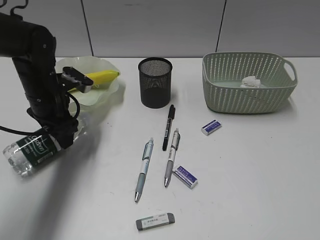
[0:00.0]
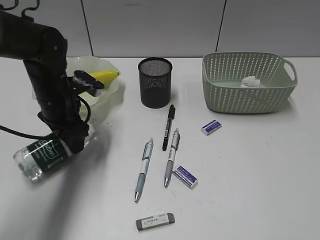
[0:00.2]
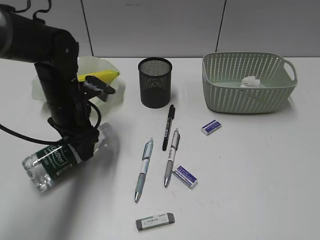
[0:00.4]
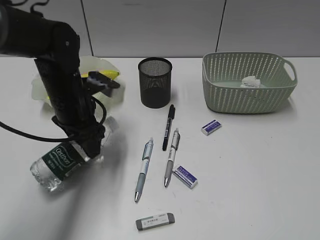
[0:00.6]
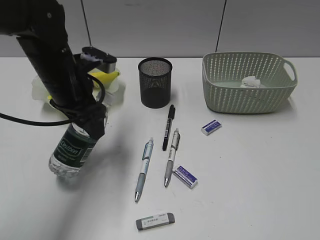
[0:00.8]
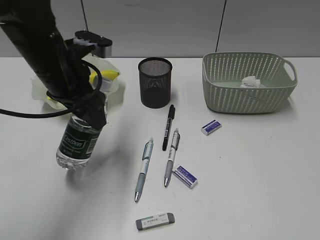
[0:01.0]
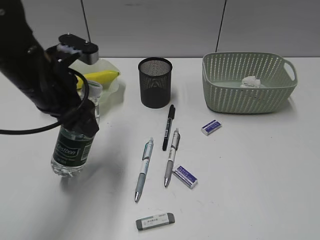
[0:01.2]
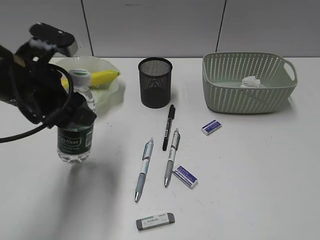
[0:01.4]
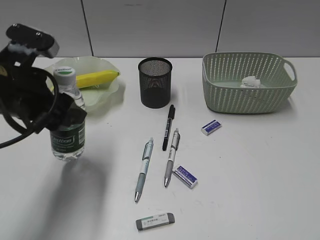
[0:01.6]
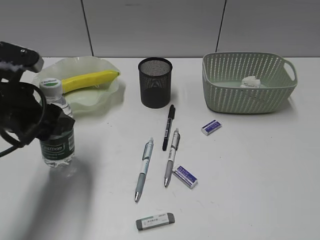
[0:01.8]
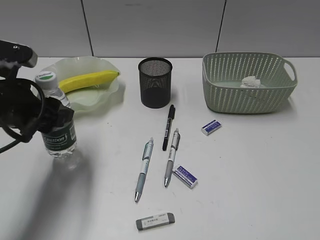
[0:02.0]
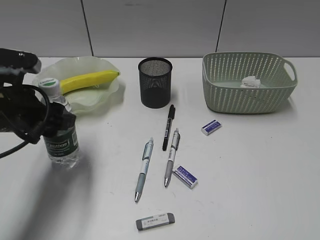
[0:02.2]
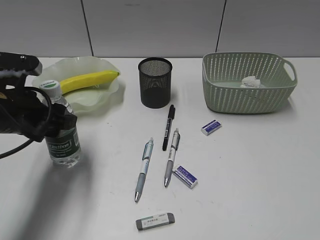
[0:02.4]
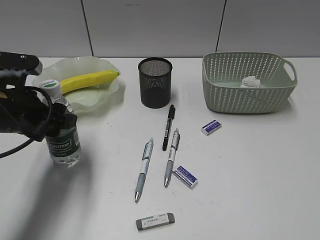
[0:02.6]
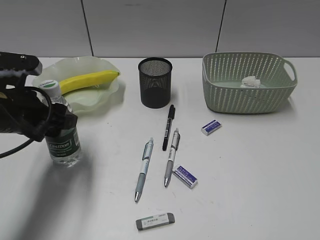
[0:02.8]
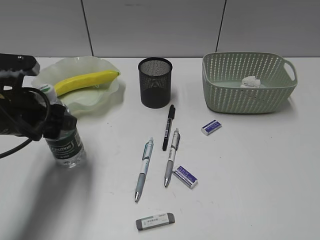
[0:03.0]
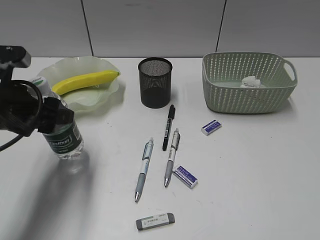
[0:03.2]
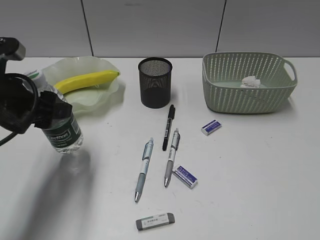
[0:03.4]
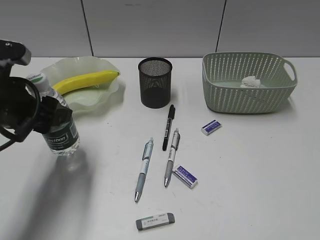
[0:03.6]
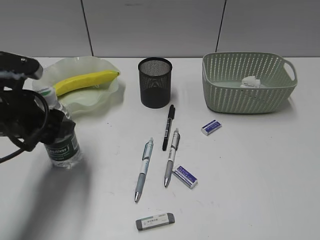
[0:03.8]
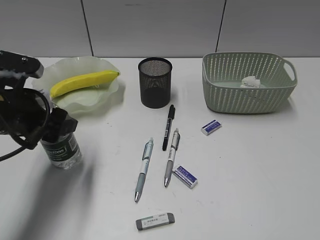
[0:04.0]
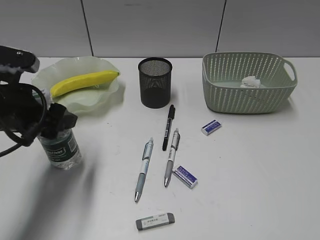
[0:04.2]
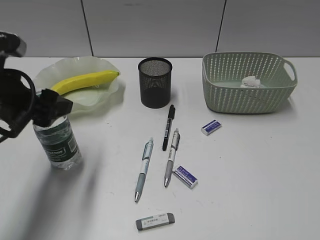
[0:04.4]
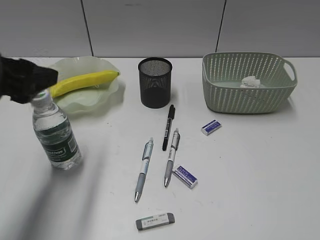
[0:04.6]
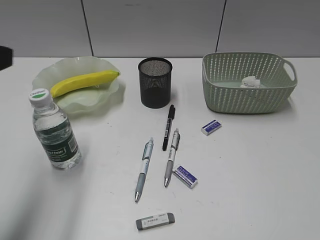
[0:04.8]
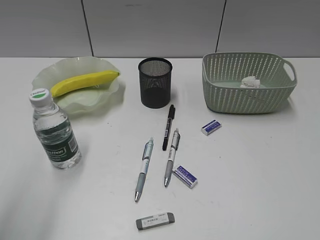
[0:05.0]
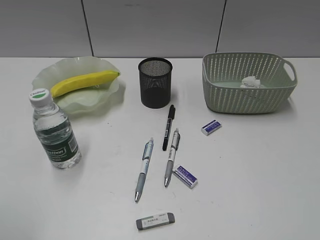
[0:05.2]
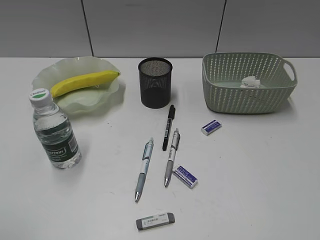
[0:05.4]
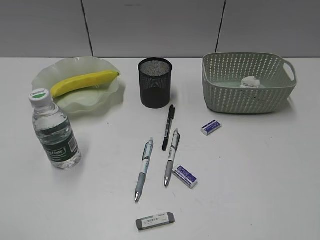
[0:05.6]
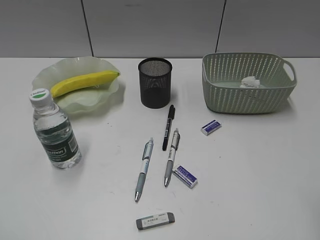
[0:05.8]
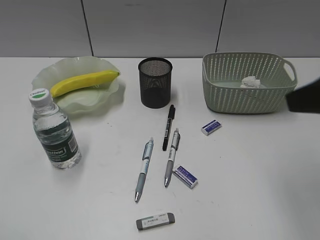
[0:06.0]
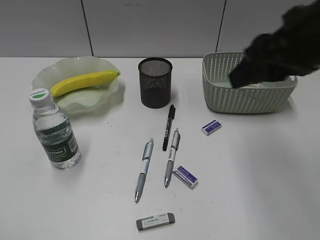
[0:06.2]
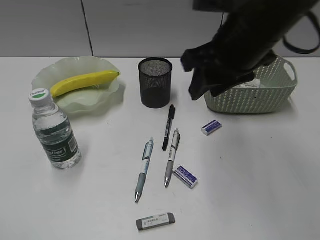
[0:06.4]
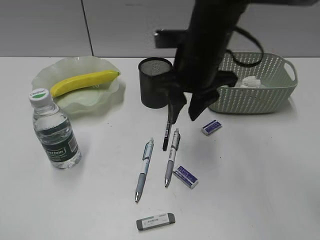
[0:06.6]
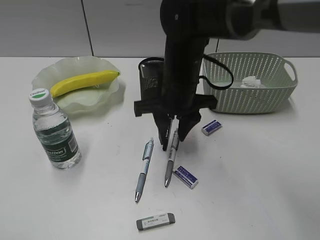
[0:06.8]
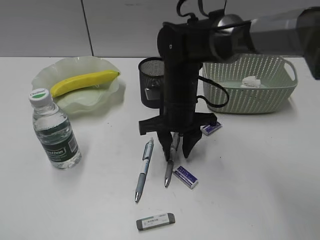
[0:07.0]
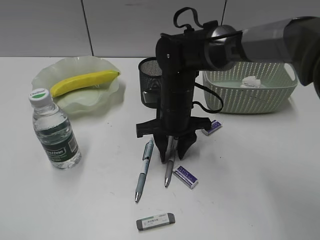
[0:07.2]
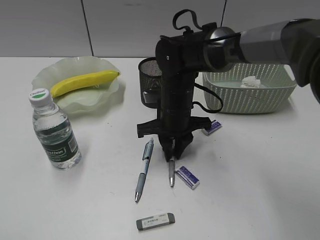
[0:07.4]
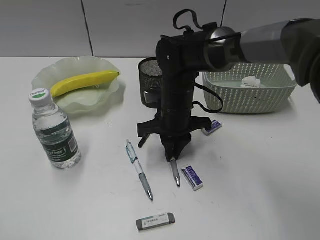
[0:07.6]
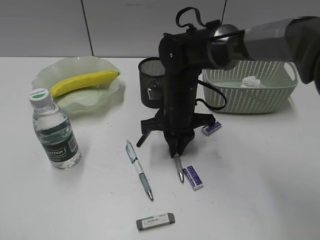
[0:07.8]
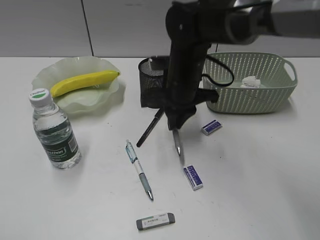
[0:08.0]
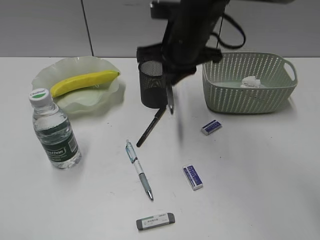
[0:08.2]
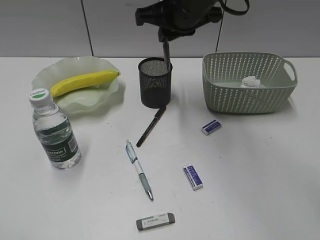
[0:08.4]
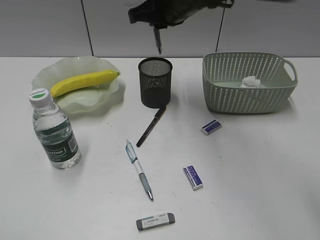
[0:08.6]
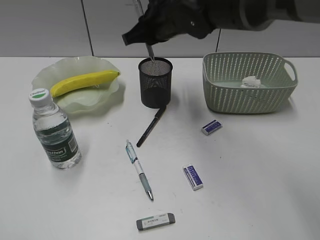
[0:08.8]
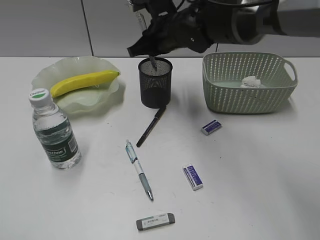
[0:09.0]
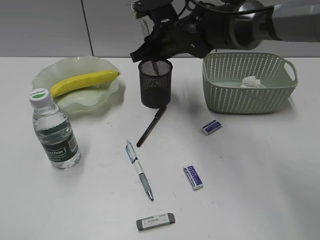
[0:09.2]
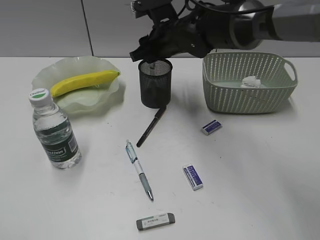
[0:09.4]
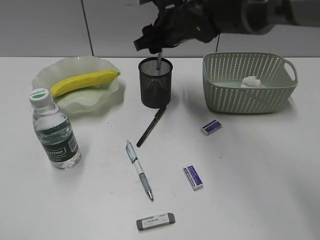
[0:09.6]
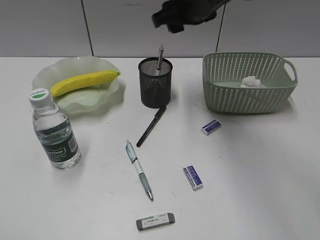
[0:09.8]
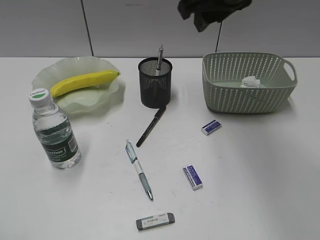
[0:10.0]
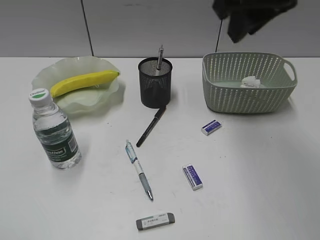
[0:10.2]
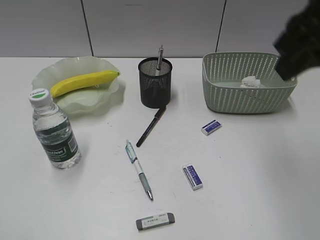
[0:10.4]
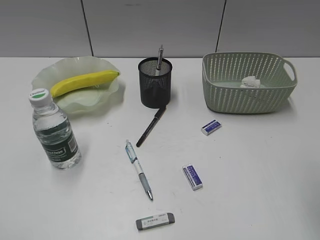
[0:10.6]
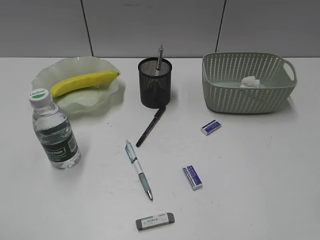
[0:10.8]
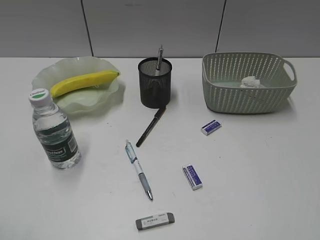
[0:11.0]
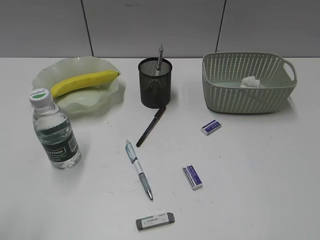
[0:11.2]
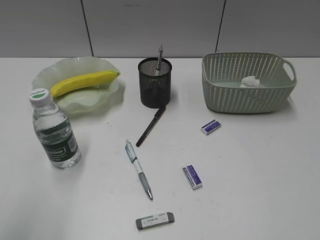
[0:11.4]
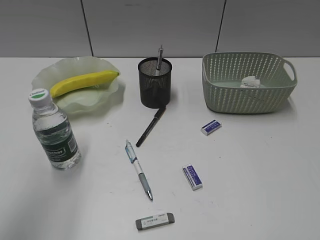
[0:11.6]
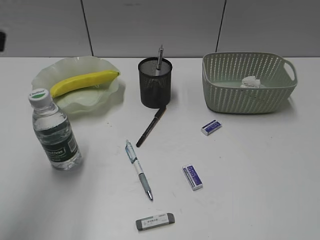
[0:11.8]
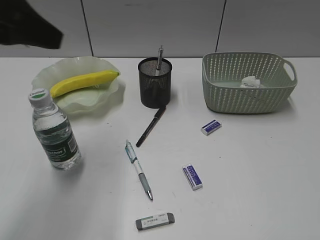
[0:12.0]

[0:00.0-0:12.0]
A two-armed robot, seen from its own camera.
Step, 0.0 to 4.6 s: Stand the bottle with left gripper.
Step, 4.8 to 7.4 s: Grasp the gray pen with right gripper.
Step, 7.6 to 9.4 s: Place the gray pen in pen holder with right gripper.
0.0 to 1.6 s: The left gripper goes roughly 15 cm backward and upward.
1.6 to 3.0 s: The left gripper changes place by about 5 cm.
3.0 to 4.4 s: There are only small adjustments of the grippers.
4.4 to 6.0 s: The right gripper is displaced forward and to the left by roughly 15 cm; the left gripper goes approximately 25 cm backward.
6.0 to 7.6 s: The right gripper moves downward, to the left and forward, roughly 35 cm, and closes up.
7.6 to 9.0 s: The right gripper moves upward and forward, some 15 cm.
9.0 to 10.4 s: The right gripper shifts approximately 30 cm backward, upward and to the right, and opens, then closes once more.
10.4 to 12.0 s: The right gripper goes approximately 30 cm backward and to the right; the left gripper moves forward and to the right, some 25 cm.

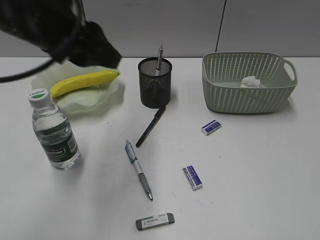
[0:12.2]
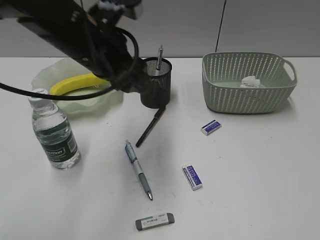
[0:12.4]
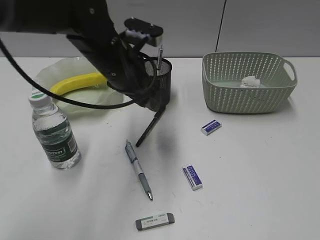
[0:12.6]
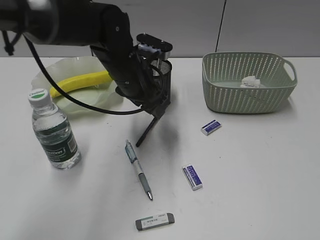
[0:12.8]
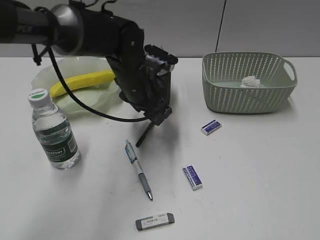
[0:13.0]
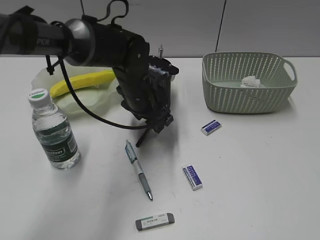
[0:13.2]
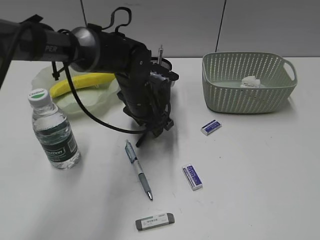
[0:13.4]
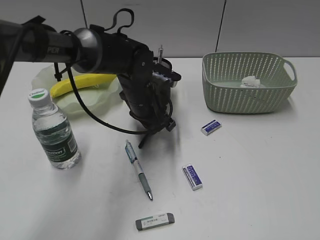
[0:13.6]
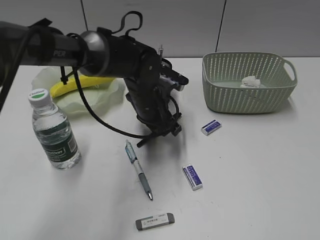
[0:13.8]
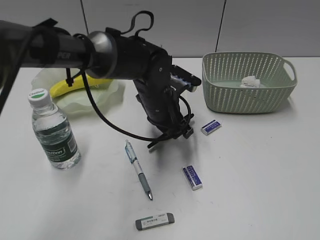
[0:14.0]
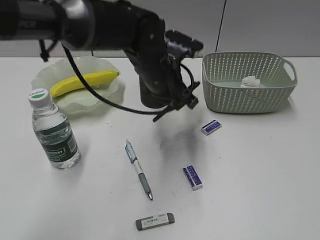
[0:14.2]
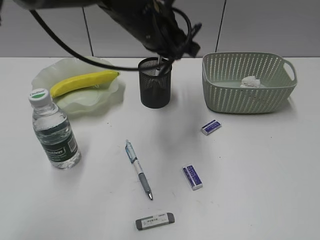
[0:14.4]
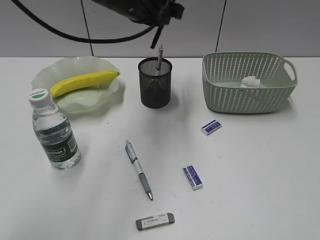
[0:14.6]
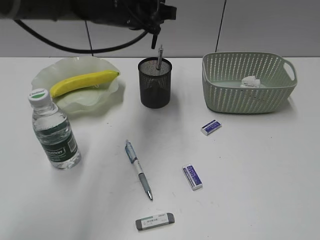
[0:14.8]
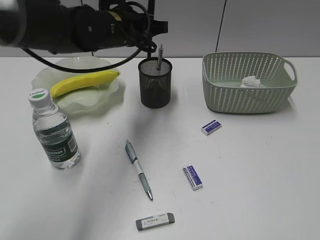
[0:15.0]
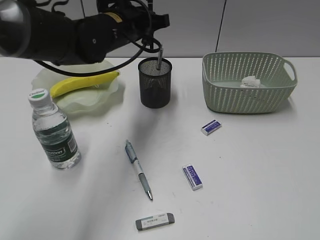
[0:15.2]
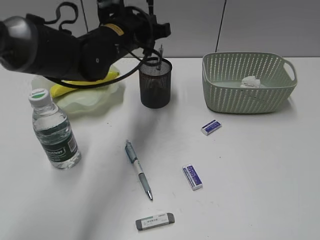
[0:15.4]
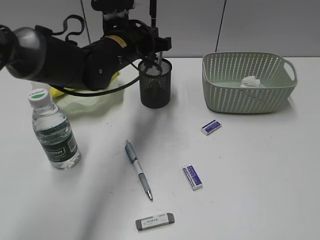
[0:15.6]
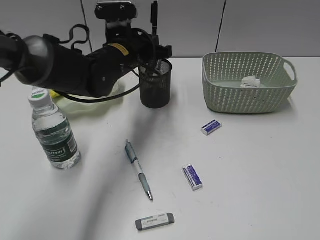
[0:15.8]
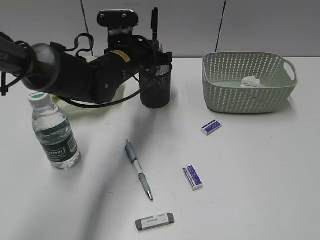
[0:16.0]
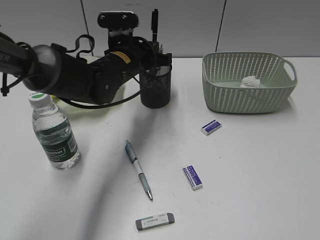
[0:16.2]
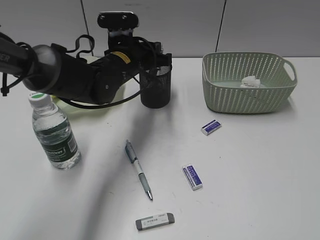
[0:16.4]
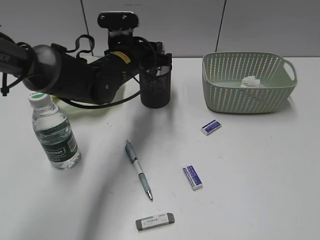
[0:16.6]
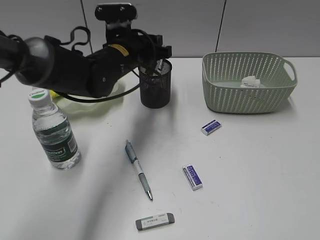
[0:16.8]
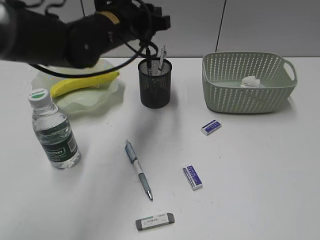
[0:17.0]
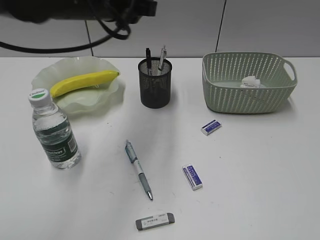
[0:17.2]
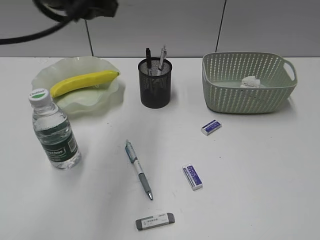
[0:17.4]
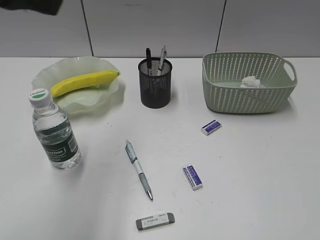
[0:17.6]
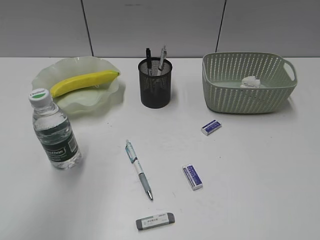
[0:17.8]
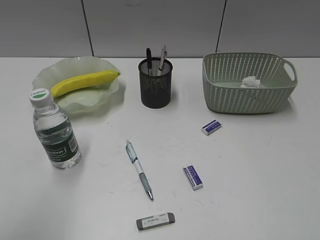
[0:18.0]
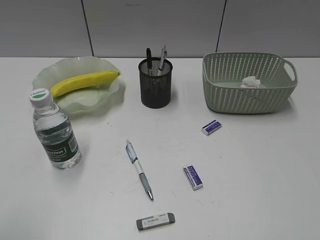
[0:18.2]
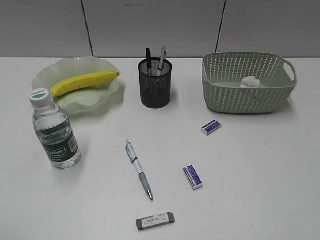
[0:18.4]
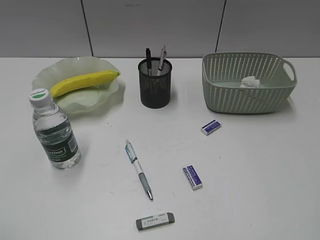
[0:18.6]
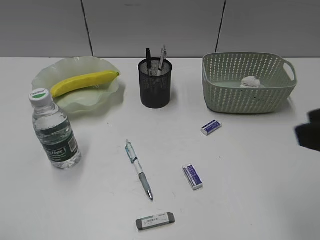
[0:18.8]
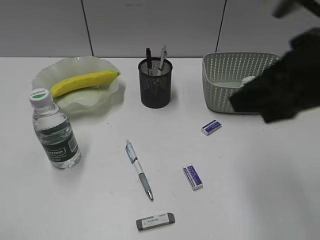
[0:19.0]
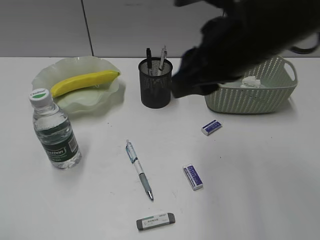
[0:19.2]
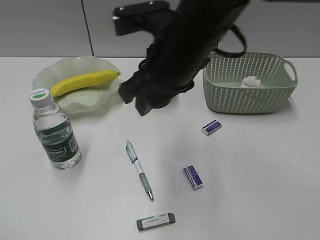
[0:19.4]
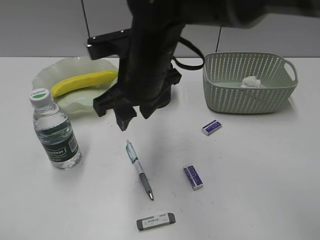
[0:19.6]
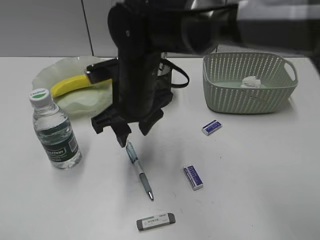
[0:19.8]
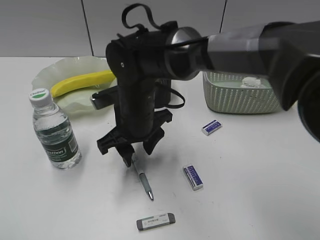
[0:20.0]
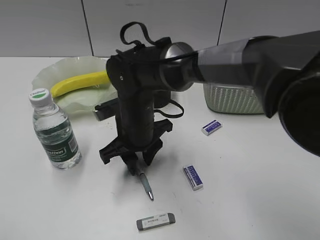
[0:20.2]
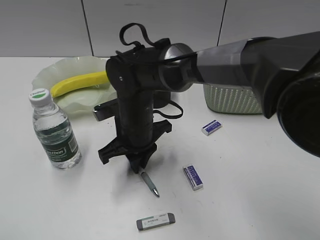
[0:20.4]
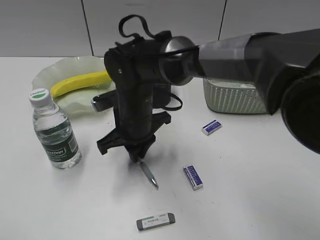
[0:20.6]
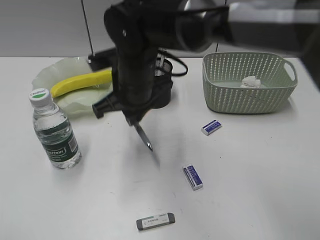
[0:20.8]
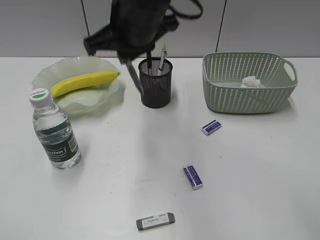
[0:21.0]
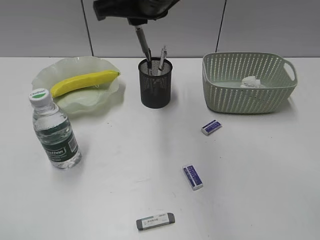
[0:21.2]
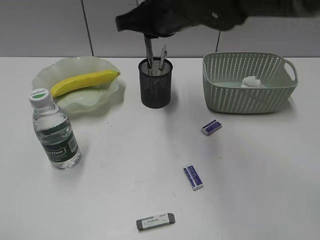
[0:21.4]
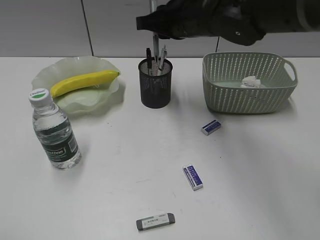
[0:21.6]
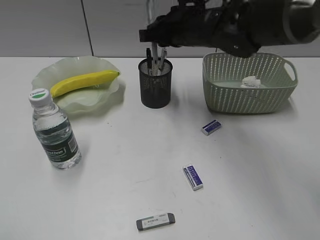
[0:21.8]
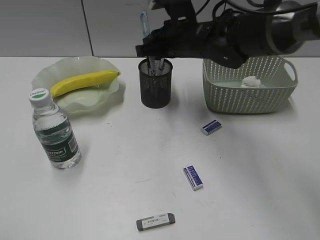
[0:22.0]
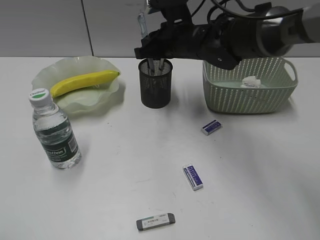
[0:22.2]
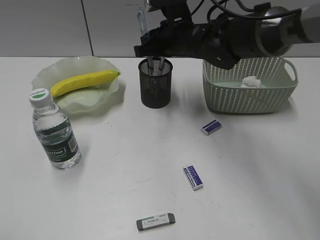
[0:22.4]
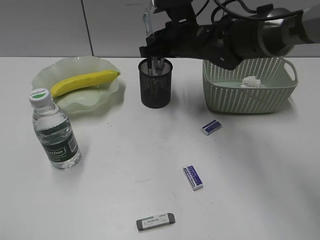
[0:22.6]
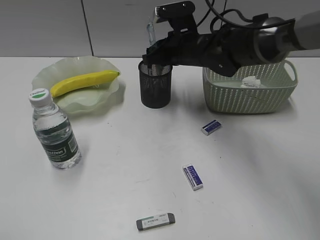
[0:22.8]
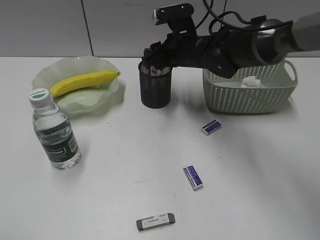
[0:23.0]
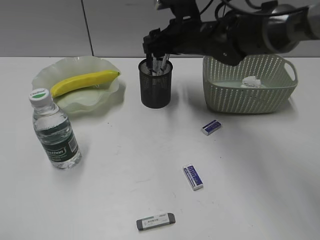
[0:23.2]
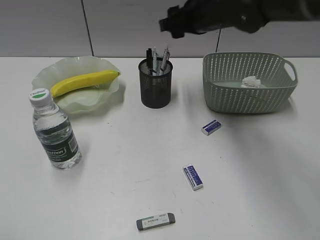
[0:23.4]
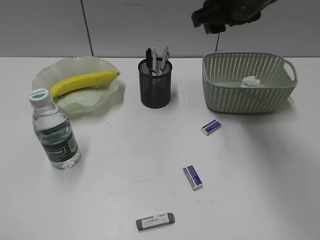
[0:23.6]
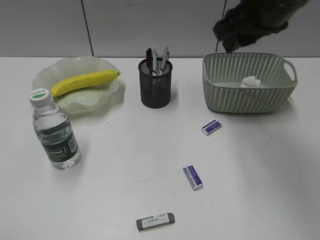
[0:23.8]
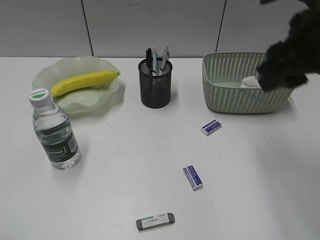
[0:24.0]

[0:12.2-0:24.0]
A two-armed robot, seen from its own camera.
Step, 14.0 to 16.8 s: Place the black pen in pen holder with left gripper.
Step, 17.0 to 20.4 s: Grasp the blue pen with right gripper.
Step, 20.6 to 23.0 s: Place the blue pen in pen holder with right gripper.
12.2 to 13.6 s: The left gripper travels downward, to the right and forward by some 25 cm, and closes its fingers.
13.6 to 15.2 s: The left gripper heads upward, covering about 10 cm.
15.2 to 16.6 s: The left gripper shifts about 5 cm downward, and opens.
16.6 to 18.2 s: The left gripper shifts about 50 cm backward, to the left and upward.
18.2 to 19.6 s: The right gripper is displaced to the left and forward by roughly 40 cm, and opens its fingers. Meanwhile the left gripper shifts by about 5 cm.
19.6 to 21.0 s: The right gripper goes downward and returns, roughly 15 cm each way, and closes its fingers.
21.0 to 22.6 s: The right gripper heads forward, to the right and downward, covering some 15 cm.
22.6 to 24.0 s: The right gripper travels backward, upward and to the right by approximately 25 cm, and opens.
